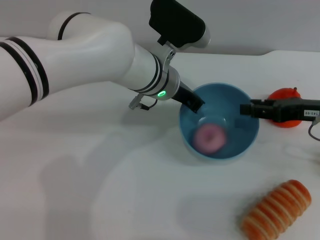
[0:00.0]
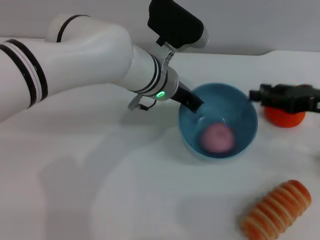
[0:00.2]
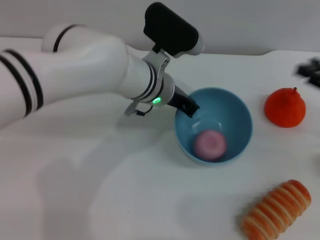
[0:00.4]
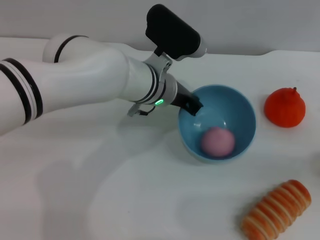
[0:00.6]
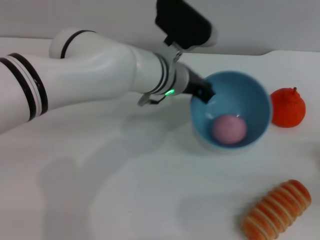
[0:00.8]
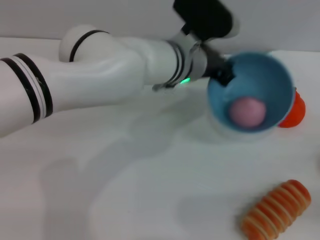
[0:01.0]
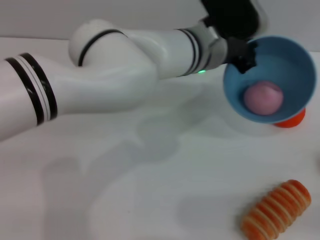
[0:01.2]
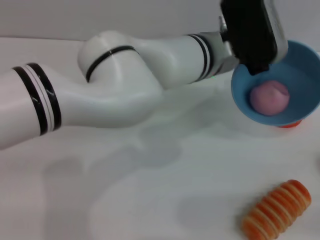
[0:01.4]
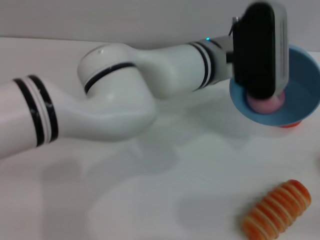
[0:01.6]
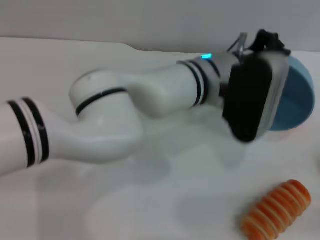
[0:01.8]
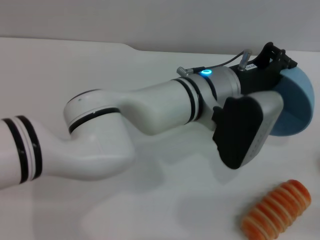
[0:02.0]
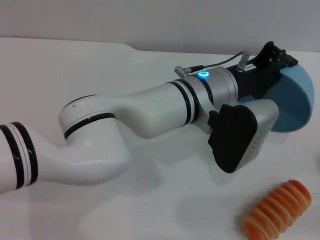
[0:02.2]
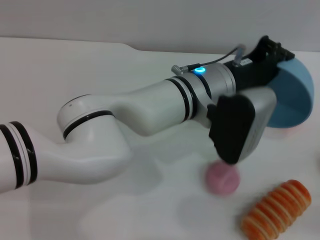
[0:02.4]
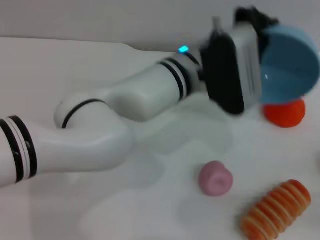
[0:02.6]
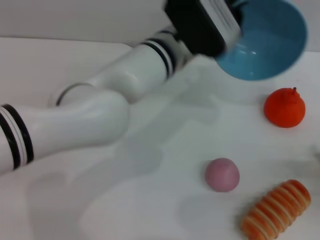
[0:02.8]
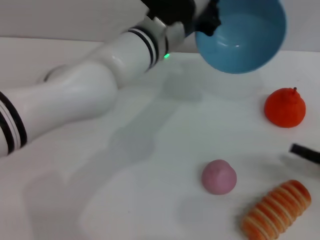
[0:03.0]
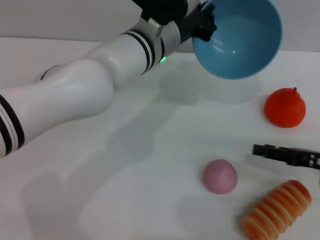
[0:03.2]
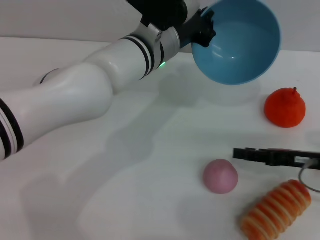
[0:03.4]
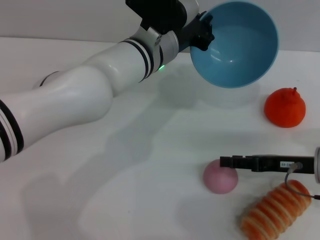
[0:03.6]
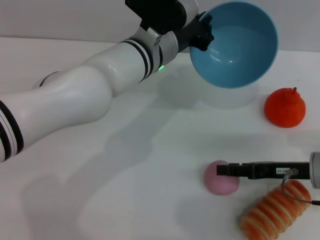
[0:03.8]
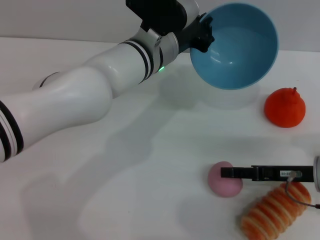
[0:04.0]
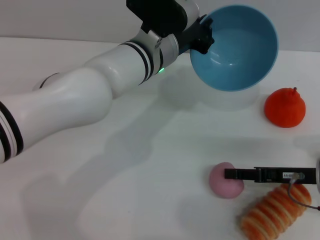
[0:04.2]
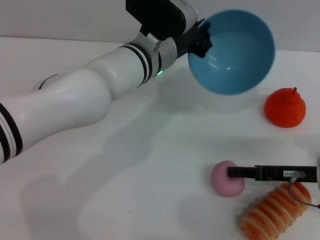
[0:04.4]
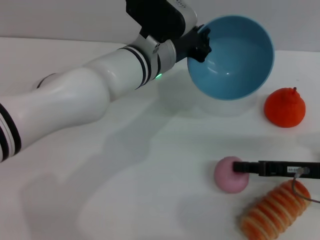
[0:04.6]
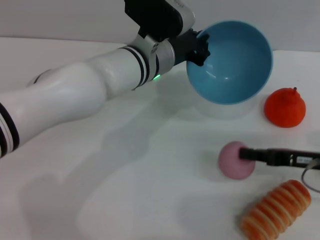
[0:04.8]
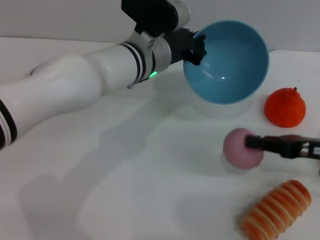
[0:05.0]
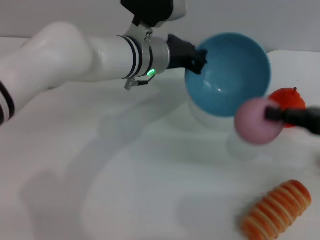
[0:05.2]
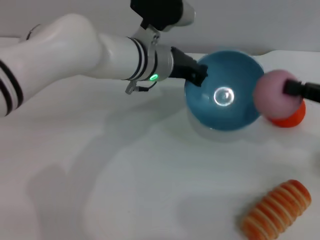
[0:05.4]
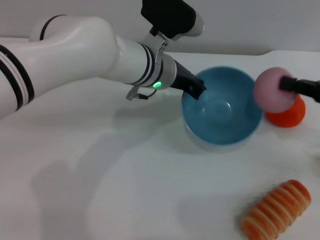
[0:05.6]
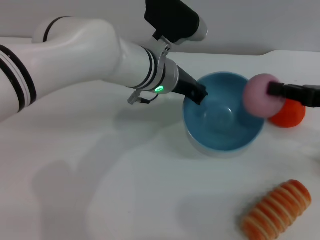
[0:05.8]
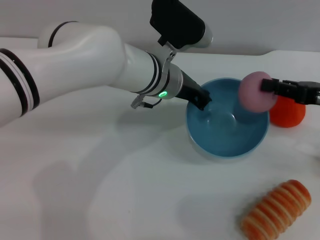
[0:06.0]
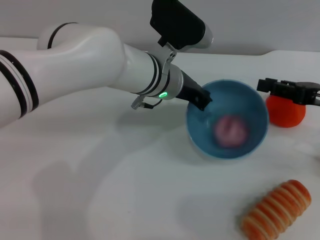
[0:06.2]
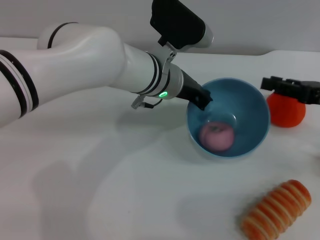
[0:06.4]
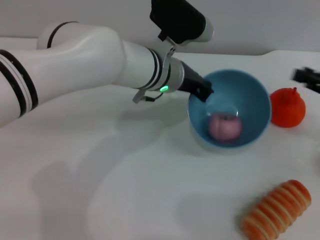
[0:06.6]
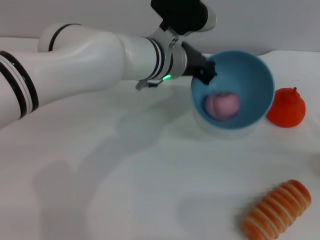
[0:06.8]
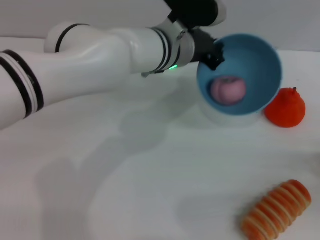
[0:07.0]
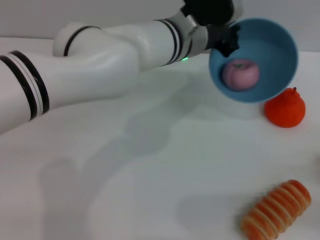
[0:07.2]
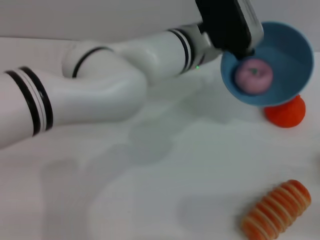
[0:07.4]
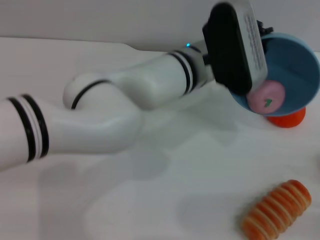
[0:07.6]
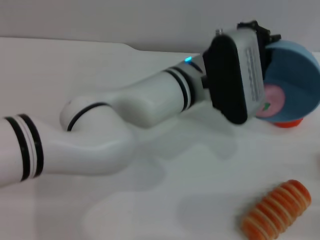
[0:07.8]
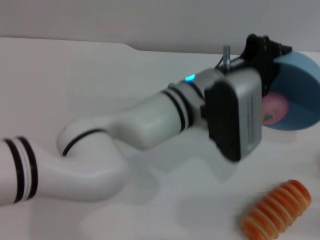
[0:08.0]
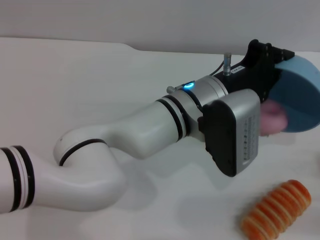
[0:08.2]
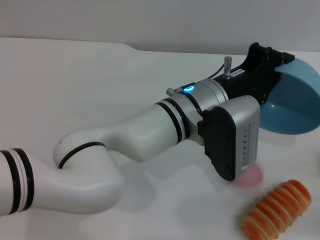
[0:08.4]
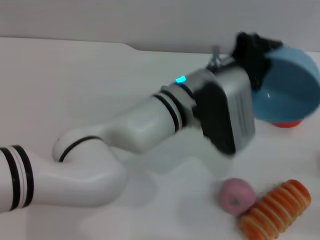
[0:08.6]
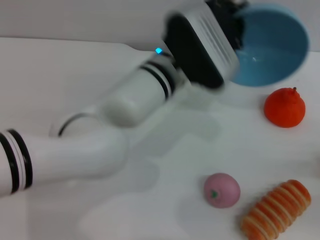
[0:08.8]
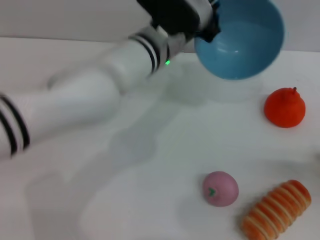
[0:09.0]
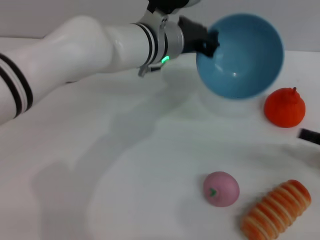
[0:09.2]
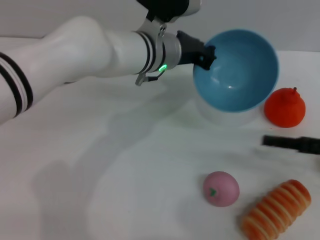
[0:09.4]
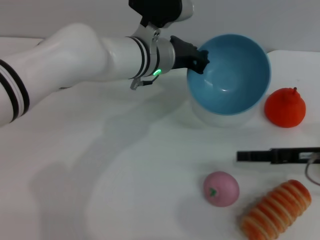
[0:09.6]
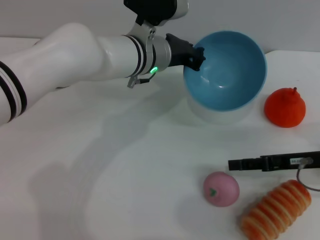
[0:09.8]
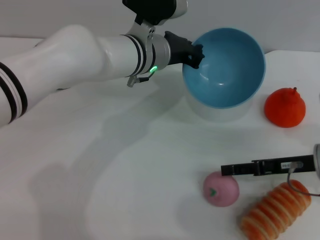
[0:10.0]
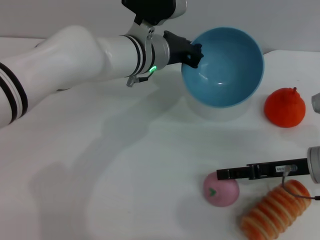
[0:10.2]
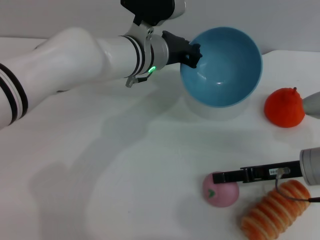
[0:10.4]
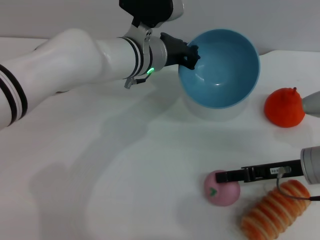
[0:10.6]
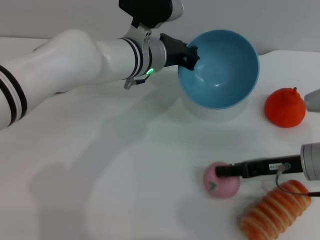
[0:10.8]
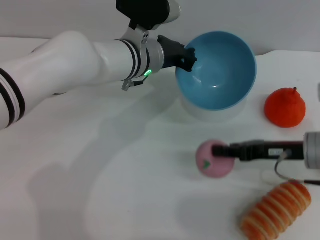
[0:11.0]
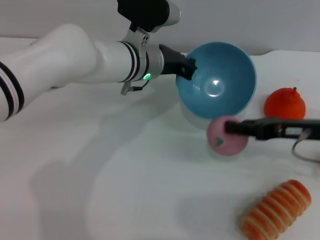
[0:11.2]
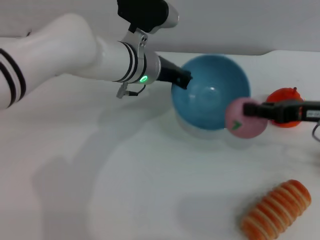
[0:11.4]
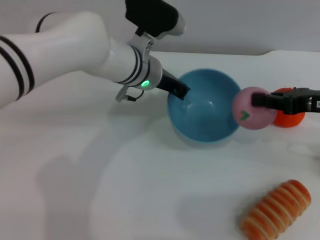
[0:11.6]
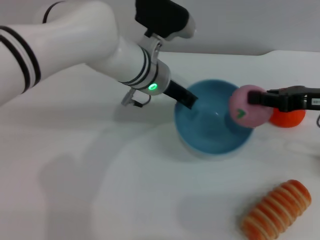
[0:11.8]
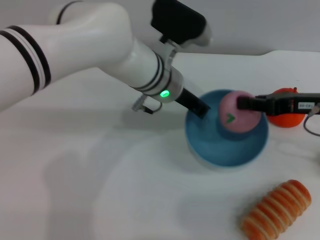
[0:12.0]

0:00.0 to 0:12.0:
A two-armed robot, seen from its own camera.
Task of the whole recording: put the peach into the blue bowl and pour it out repeatedly.
Step, 0:00.4 to 0:02.4: Pour the peach out of bowl.
Step, 0:02.8 to 0:05.0: Pick up the peach with the right gripper.
Step, 0:05.2 to 0:06.4: Place the peach into the bowl.
Step, 0:06.6 to 0:08.4: Pour the peach out of bowl.
Step, 0:08.6 to 0:11.0: Pick up the peach with the right gripper.
0:00.0 to 0:01.6: The right gripper travels backward, to the right and downward by roughly 20 cm, and opens its fingers, while the left gripper heads to the right, covering about 5 cm.
0:01.6 to 0:03.0: The left gripper travels to the left by some 5 cm; the right gripper goes approximately 10 cm forward and to the left.
0:03.0 to 0:04.4: The right gripper travels to the left by roughly 10 cm.
0:04.4 to 0:06.0: The right gripper heads upward, covering about 10 cm, and closes up.
0:06.0 to 0:07.6: The left gripper moves about 5 cm; the right gripper travels backward, downward and to the right by roughly 20 cm, and opens.
0:07.6 to 0:09.0: The left gripper shifts by some 5 cm. Meanwhile the right gripper shifts by about 5 cm.
0:09.0 to 0:10.4: The right gripper travels to the left and forward by approximately 20 cm.
0:10.4 to 0:12.0: The right gripper travels upward by some 10 cm, and closes its fingers.

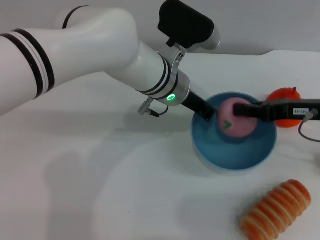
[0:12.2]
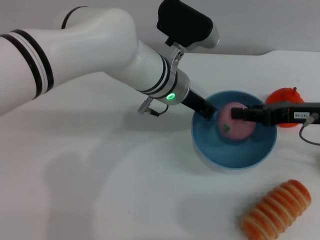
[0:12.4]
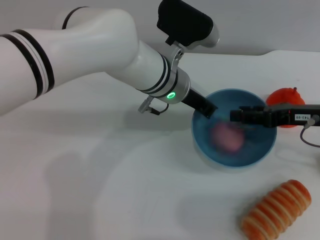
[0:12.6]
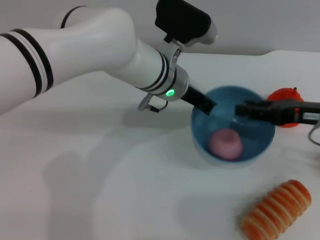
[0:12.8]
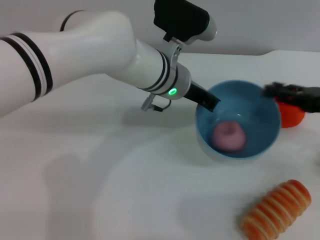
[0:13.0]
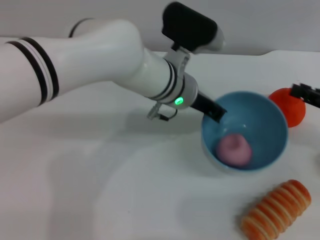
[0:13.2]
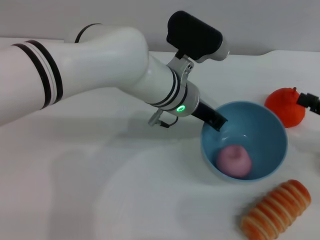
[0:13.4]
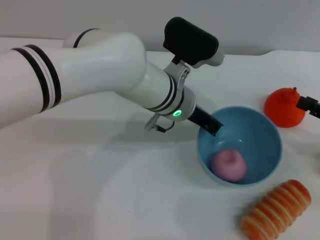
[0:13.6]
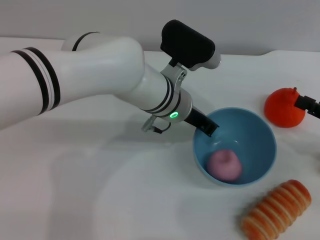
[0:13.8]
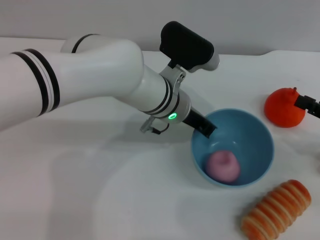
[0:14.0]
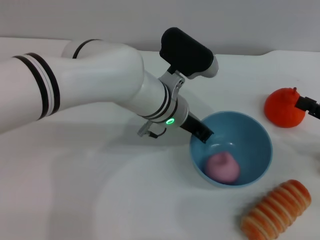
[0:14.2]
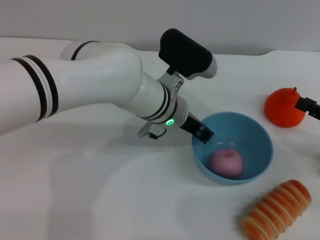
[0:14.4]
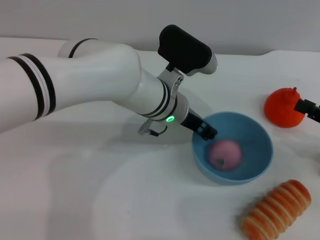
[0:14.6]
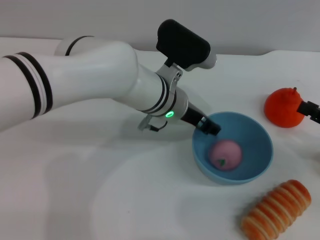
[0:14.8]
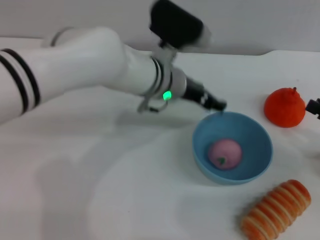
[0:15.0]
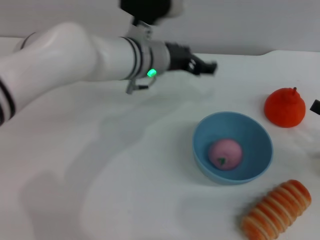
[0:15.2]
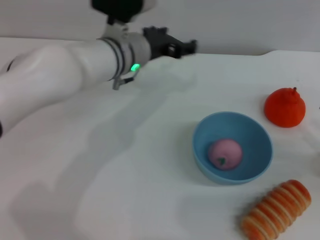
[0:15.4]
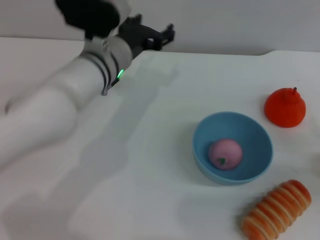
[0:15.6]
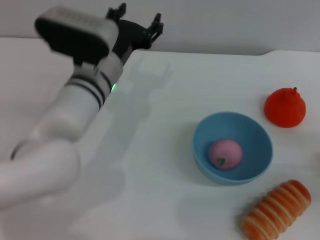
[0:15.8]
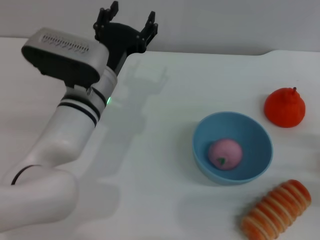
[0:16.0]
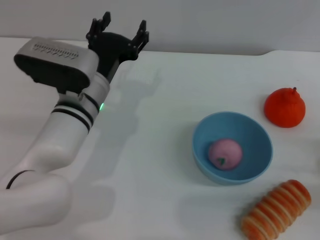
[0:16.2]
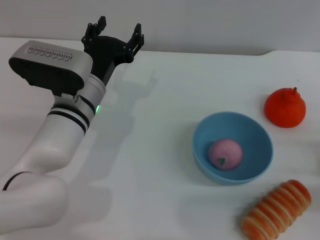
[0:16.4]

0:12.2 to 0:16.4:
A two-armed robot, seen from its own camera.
Task of the whole recording: put the peach into the blue bowl and pour it out repeatedly.
Step, 0:13.2 to 0:15.0: Place the bowl on the table.
0:12.2 to 0:13.6: The right gripper shifts some 10 cm to the right and backward, and opens.
0:13.6 to 0:15.0: The left gripper opens up.
0:15.0 to 0:16.4: The left gripper moves to the left and backward, roughly 10 cm; the right gripper heads downward, covering some 5 cm.
